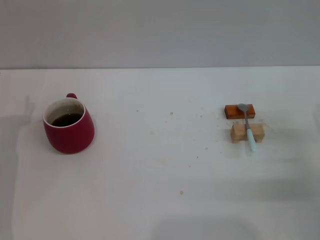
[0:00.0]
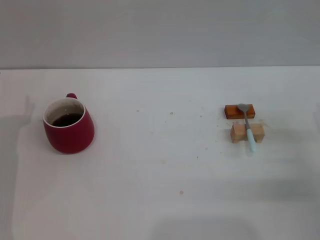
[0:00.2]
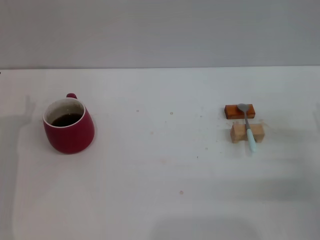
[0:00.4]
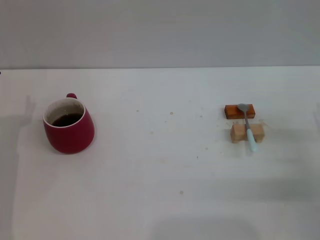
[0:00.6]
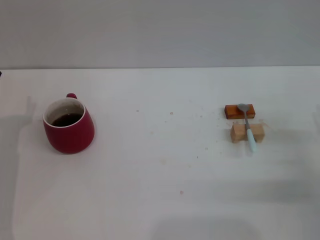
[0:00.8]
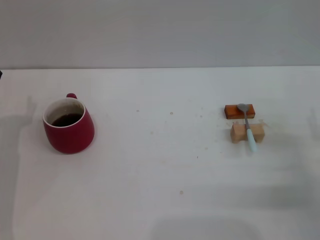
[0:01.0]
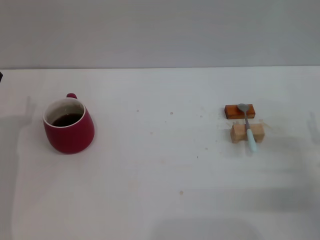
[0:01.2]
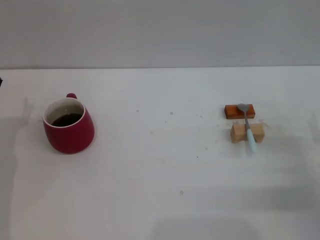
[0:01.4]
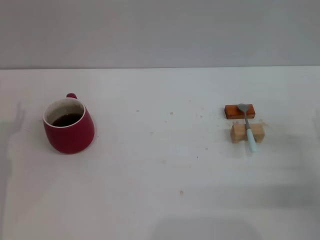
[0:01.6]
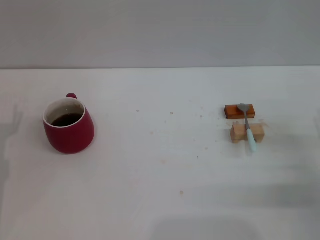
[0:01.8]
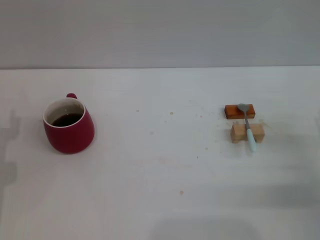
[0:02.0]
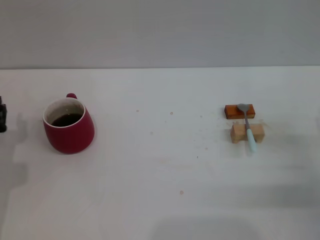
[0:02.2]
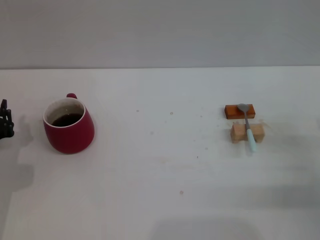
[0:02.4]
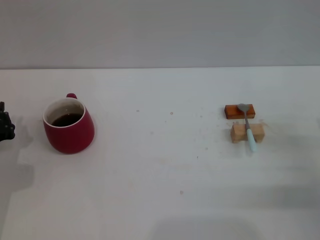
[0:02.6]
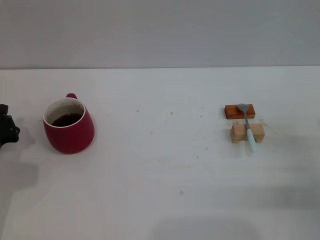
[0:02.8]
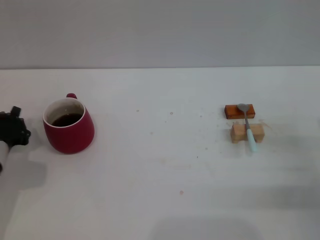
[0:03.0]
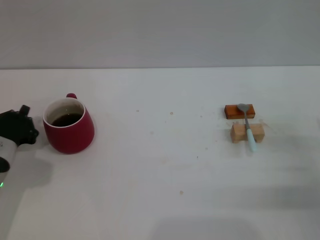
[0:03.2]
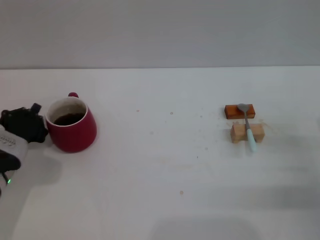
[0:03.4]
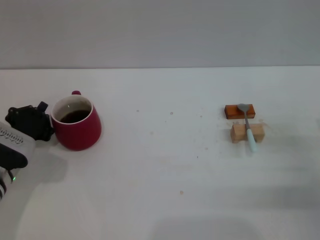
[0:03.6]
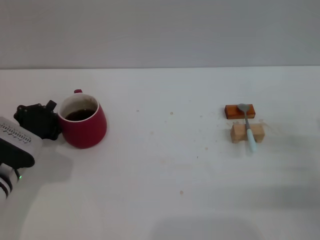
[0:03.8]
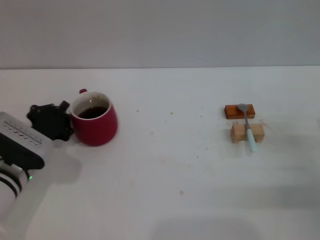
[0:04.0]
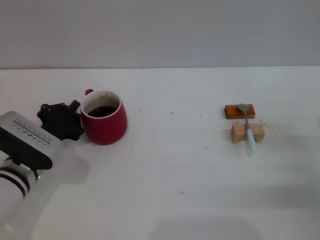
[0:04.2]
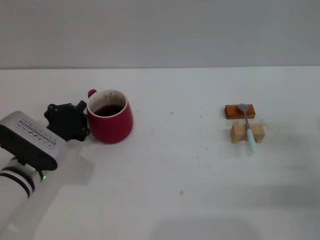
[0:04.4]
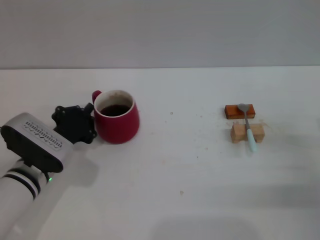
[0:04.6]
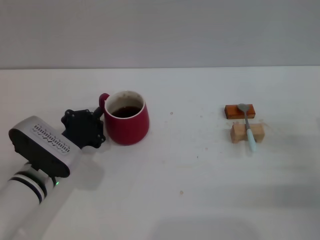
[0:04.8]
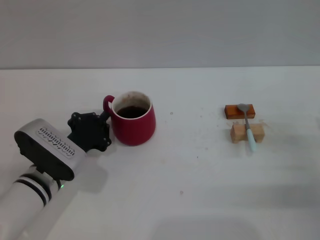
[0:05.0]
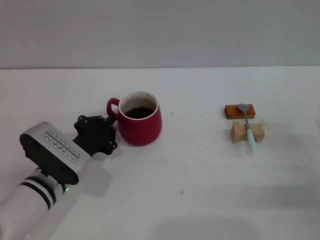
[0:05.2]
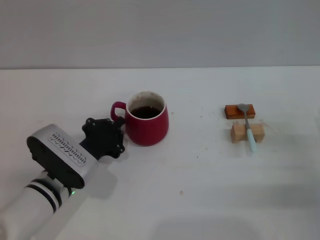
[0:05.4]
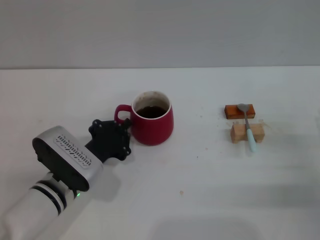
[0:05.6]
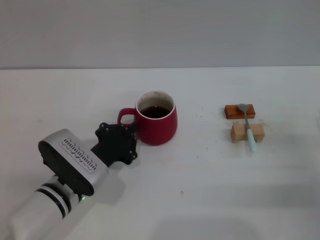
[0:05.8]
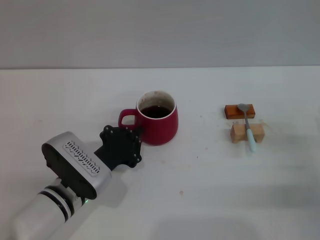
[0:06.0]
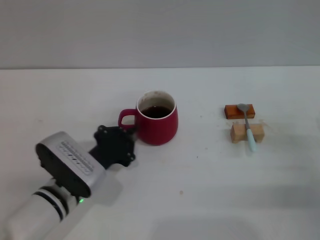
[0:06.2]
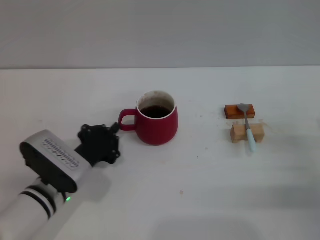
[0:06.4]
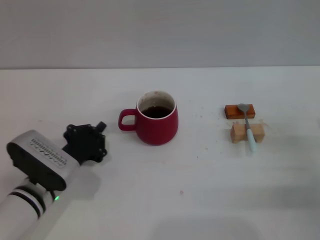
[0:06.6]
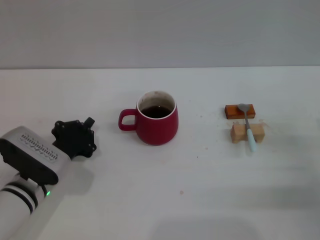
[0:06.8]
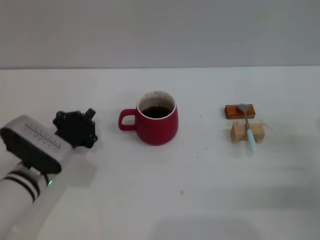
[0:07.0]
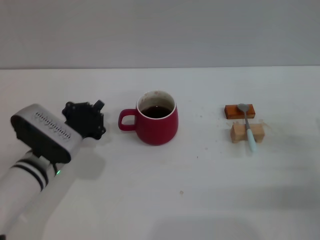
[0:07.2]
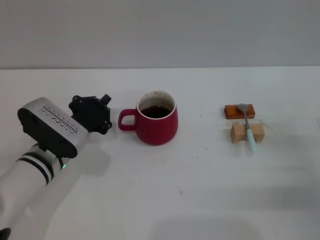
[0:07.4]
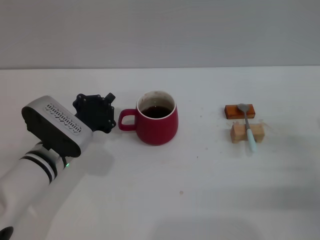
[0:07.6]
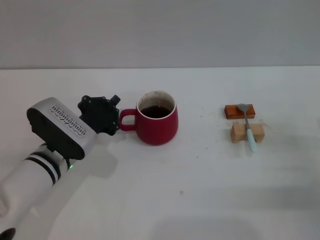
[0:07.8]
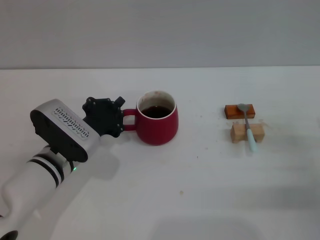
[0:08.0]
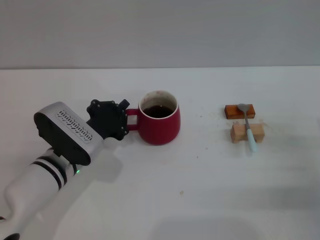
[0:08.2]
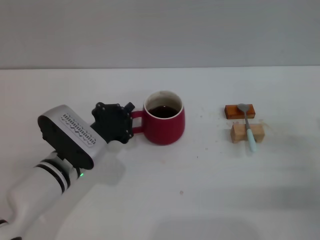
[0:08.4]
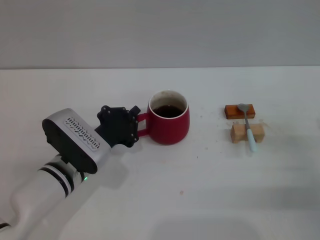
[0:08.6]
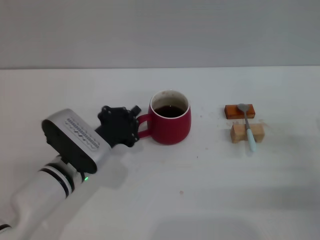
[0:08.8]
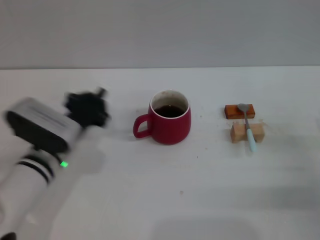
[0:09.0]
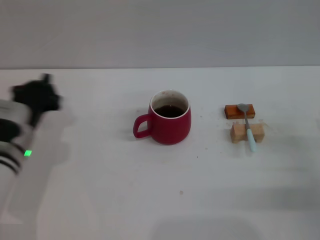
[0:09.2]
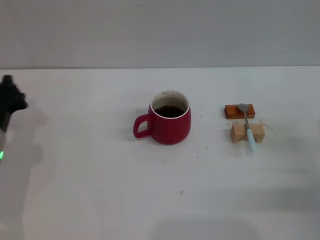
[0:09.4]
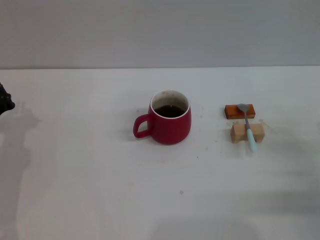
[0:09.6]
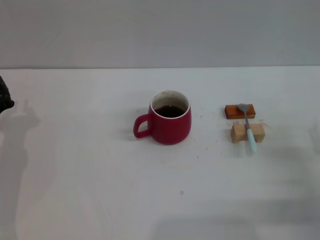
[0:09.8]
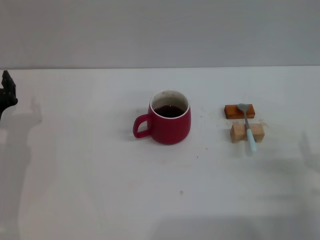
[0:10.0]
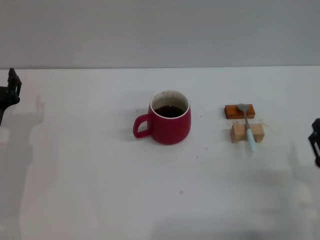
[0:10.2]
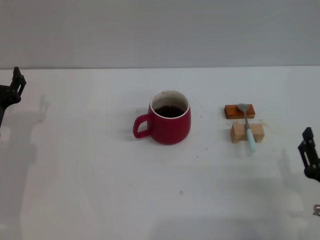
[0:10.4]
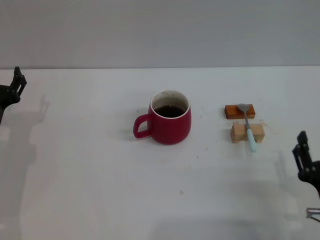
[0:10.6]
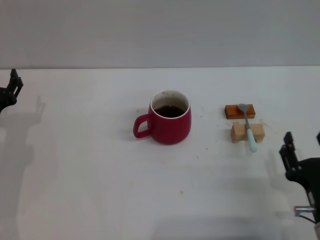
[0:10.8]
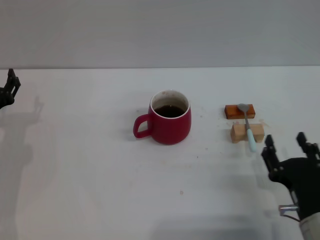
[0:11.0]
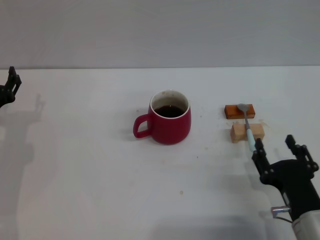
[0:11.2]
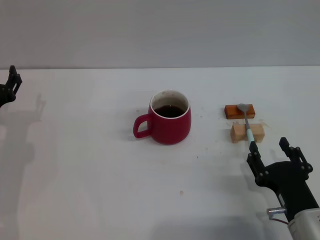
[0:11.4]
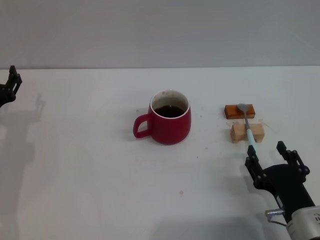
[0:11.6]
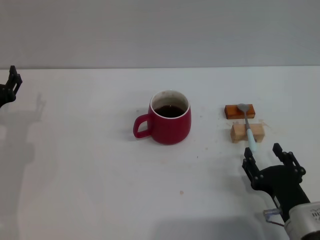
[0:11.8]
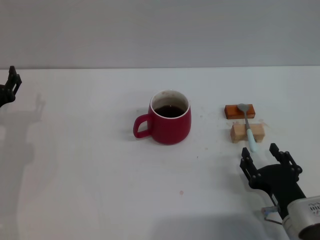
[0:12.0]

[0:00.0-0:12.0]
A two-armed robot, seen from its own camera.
Task of the whole recording: Move the red cup to the center, lift the blue spoon, stir it three times in the cup, and put the spoon into the cup.
Step, 0:00.0 to 0:08.8: Move the cup with coffee to the center of view with the left gripper.
0:01.6 to 0:03.0: The left gripper closes its fingers.
0:03.0 to 0:04.4: The left gripper travels to the right by about 5 cm.
0:04.4 to 0:06.0: The left gripper heads to the right, covering about 5 cm.
0:06.0 to 0:07.6: The left gripper ends up about 5 cm from where it was.
0:07.6 to 0:09.0: The grippers stay close to where they were, moving slightly.
0:09.0 to 0:10.4: The right gripper goes some 15 cm backward and to the left, while the left gripper heads to the left, covering about 10 cm, and opens its fingers.
0:10.4 to 0:12.0: The right gripper shifts by roughly 5 cm.

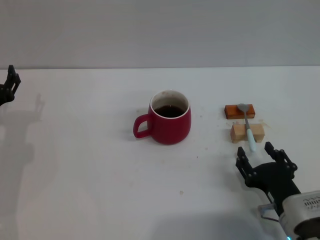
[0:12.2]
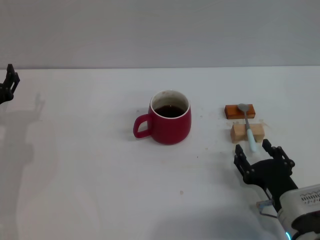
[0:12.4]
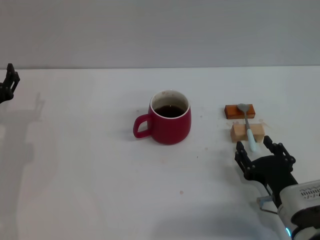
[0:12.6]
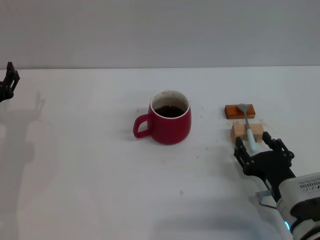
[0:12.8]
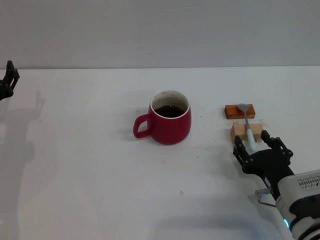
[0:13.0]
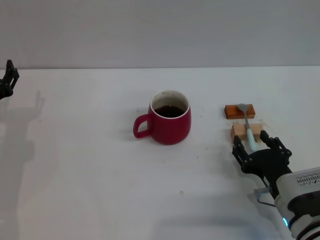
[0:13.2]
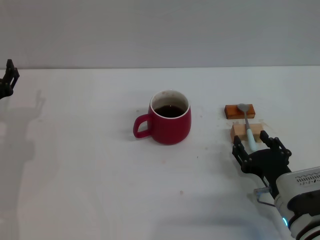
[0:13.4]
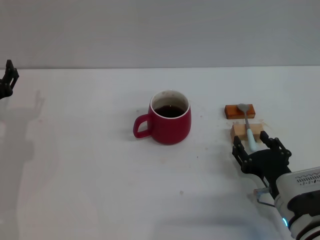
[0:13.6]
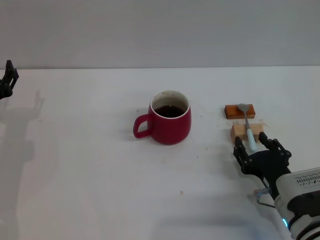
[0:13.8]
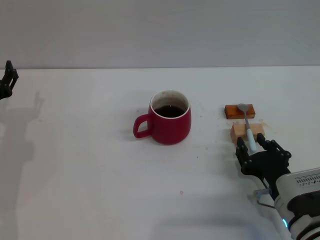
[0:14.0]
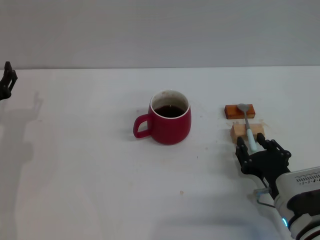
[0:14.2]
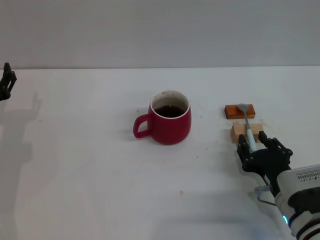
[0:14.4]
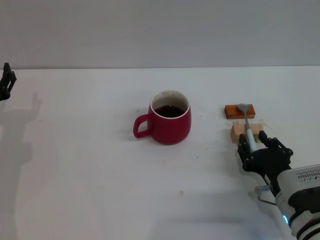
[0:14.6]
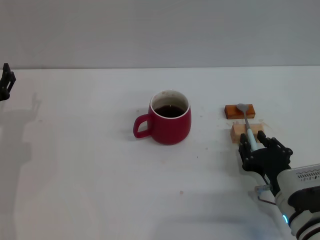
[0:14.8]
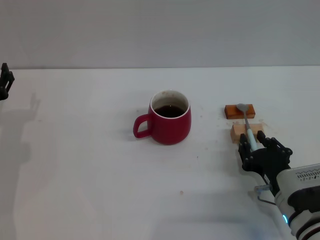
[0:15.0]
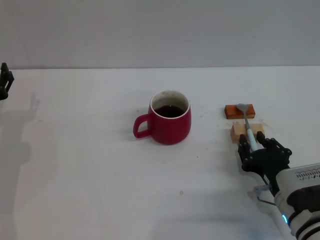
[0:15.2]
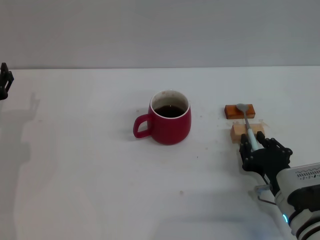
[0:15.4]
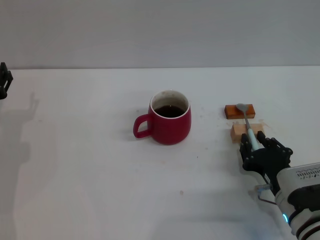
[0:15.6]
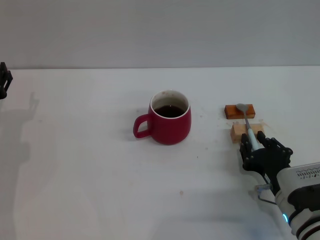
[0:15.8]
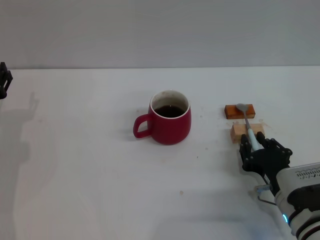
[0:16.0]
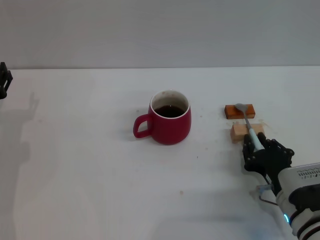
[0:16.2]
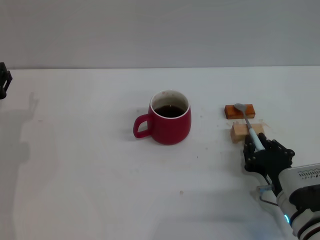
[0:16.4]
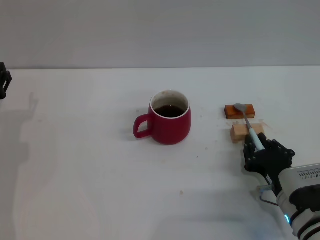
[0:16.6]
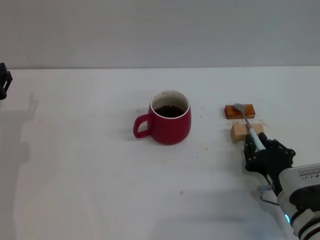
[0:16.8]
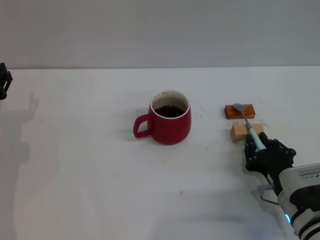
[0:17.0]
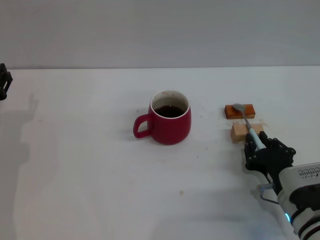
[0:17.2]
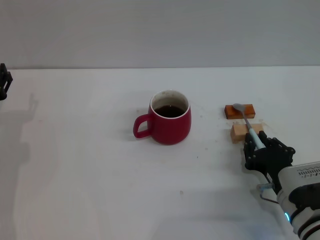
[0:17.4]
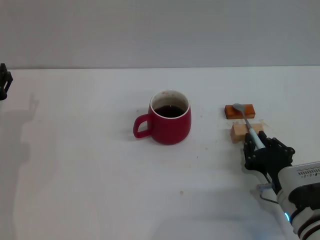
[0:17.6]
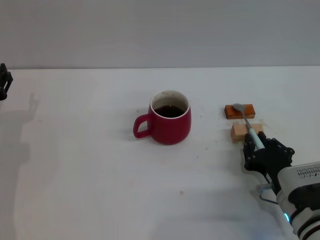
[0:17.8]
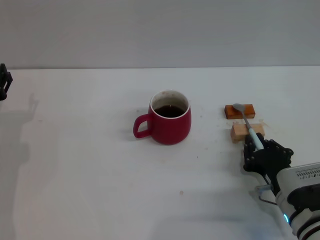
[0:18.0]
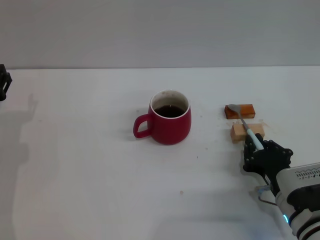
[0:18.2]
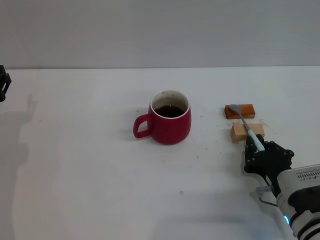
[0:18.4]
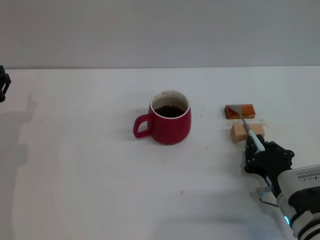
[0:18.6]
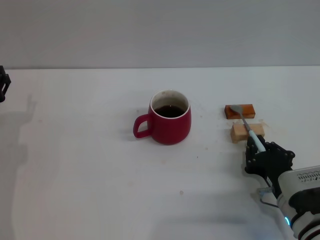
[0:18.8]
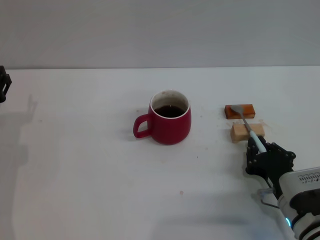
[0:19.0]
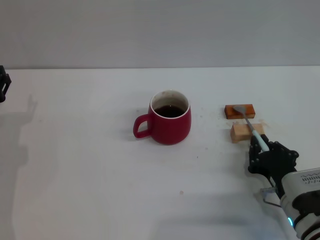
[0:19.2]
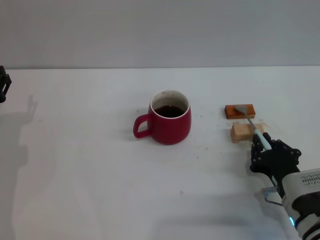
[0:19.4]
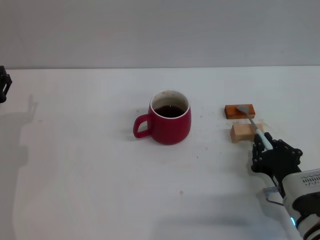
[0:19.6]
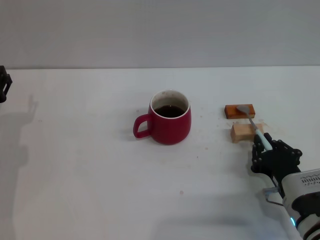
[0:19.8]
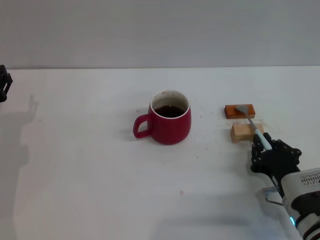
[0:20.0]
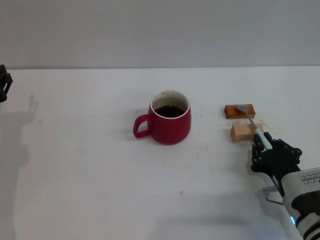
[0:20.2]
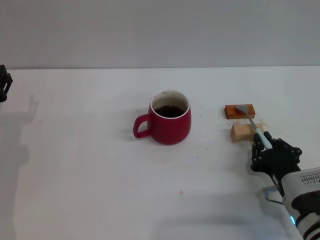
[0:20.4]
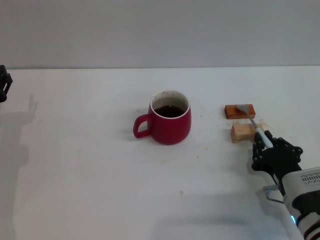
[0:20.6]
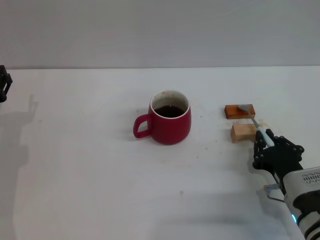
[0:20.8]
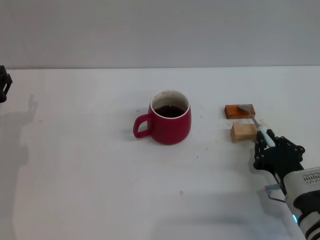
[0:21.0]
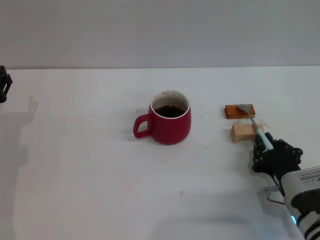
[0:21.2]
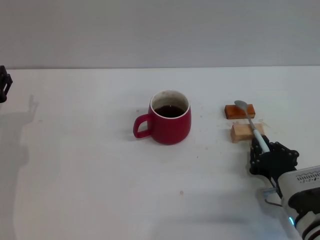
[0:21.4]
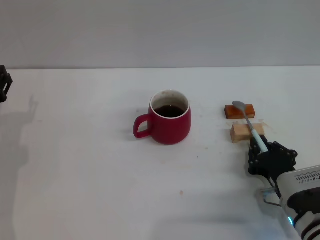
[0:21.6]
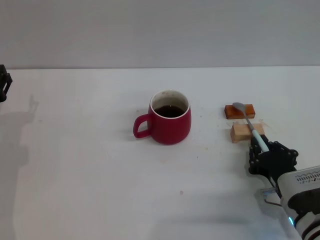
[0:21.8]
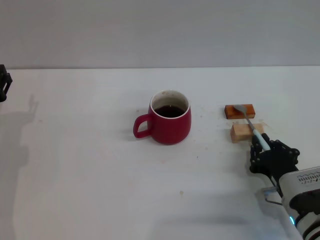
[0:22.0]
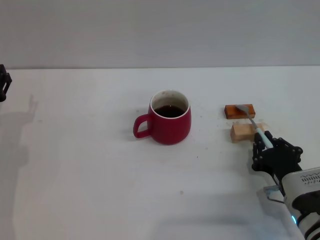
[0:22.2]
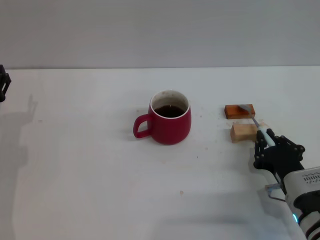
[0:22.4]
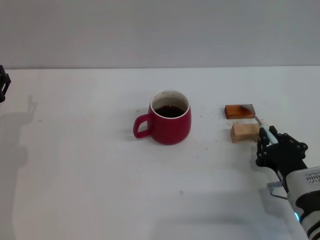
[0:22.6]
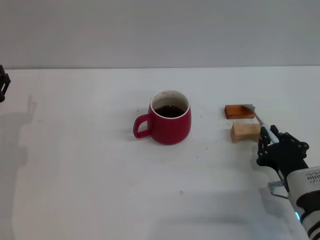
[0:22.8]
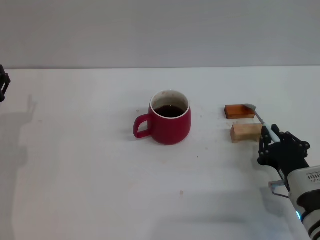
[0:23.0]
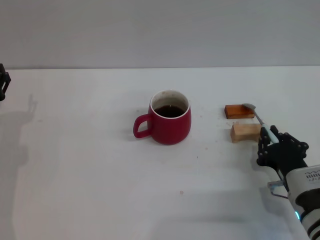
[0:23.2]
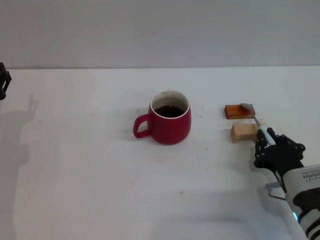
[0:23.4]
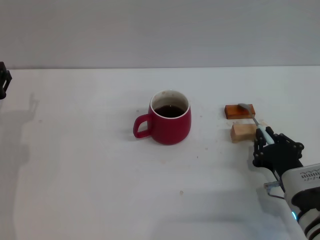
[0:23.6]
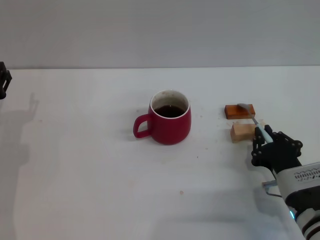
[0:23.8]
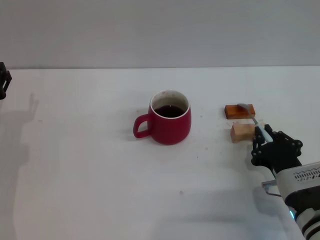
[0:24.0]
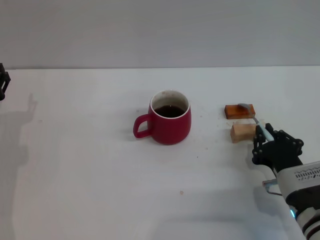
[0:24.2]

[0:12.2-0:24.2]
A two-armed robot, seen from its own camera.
Task of the whole recording: Move the red cup to the center, lift the blue spoon, stir it three times in the cup, and put the spoon into the cup.
0:12.2 to 0:13.8: The grippers make only small movements.
0:13.8 to 0:15.2: The right gripper closes up.
0:15.2 to 0:19.8: Both grippers stay put.
0:19.8 to 0:22.6: Neither gripper changes place.
0:22.6 to 0:24.2: Neither gripper changes place.
